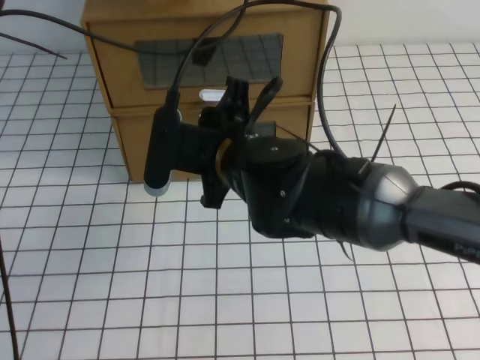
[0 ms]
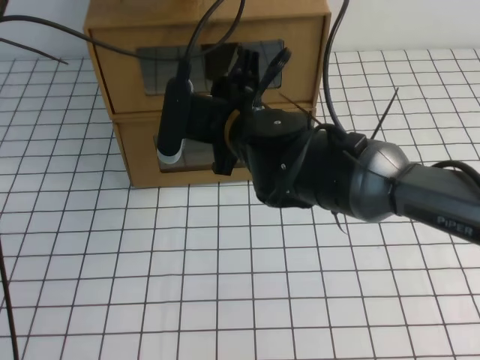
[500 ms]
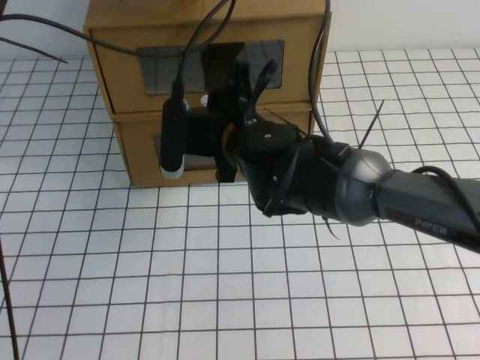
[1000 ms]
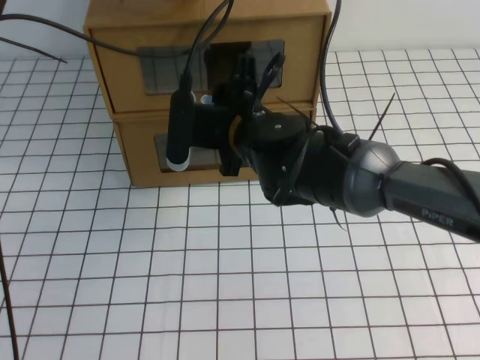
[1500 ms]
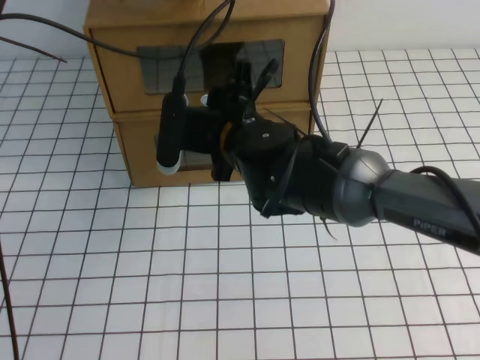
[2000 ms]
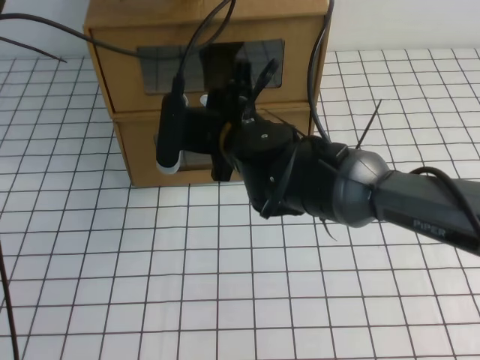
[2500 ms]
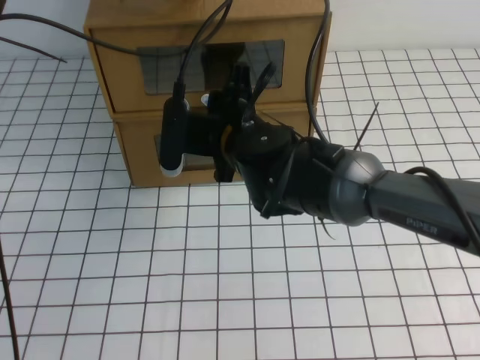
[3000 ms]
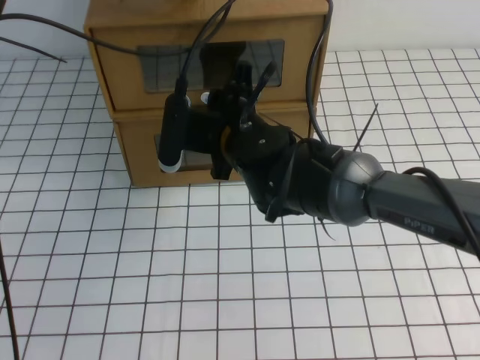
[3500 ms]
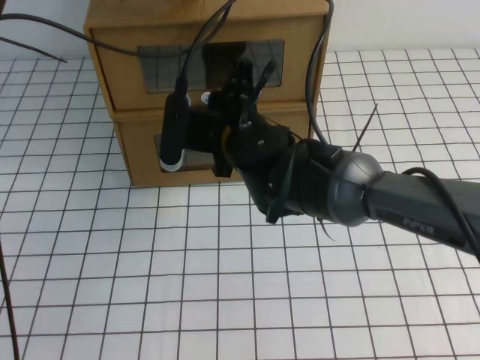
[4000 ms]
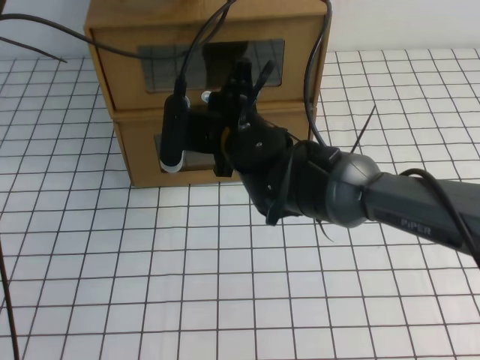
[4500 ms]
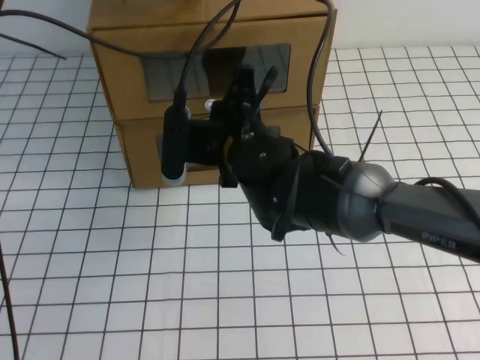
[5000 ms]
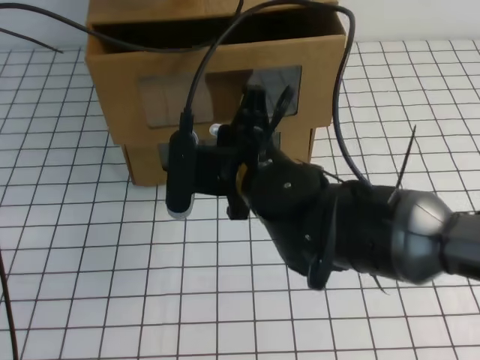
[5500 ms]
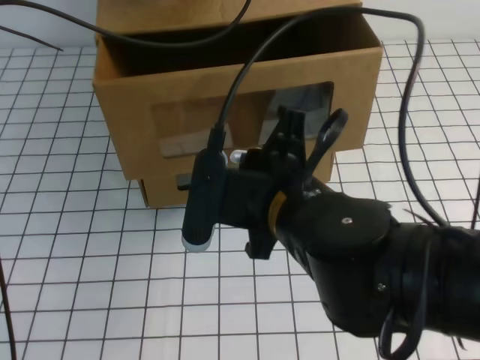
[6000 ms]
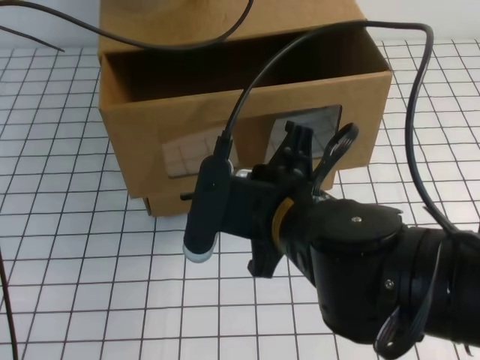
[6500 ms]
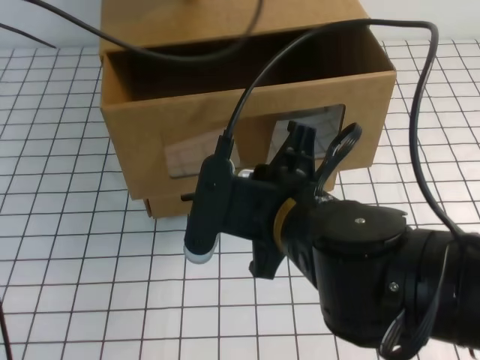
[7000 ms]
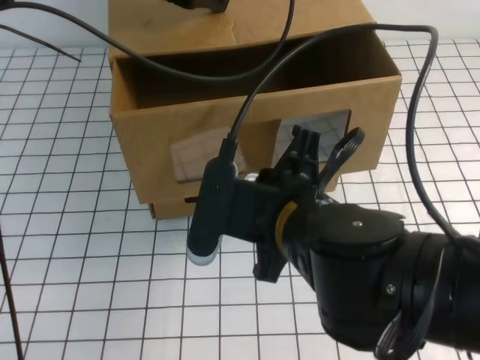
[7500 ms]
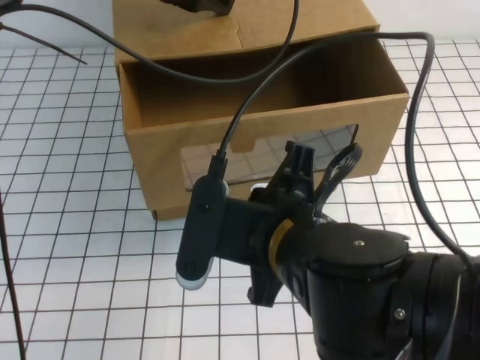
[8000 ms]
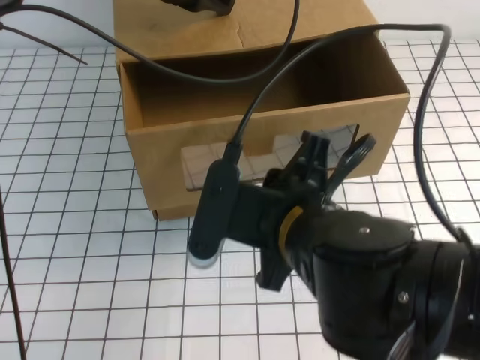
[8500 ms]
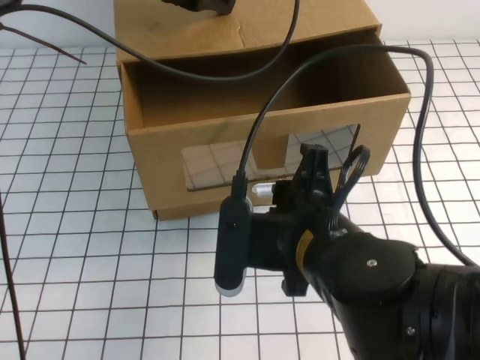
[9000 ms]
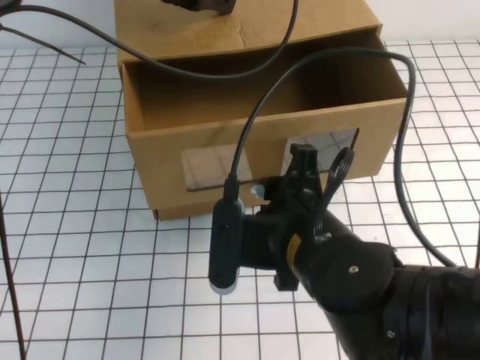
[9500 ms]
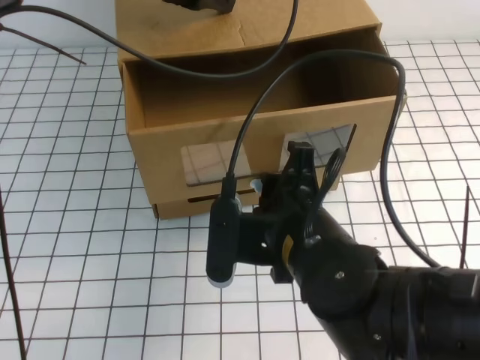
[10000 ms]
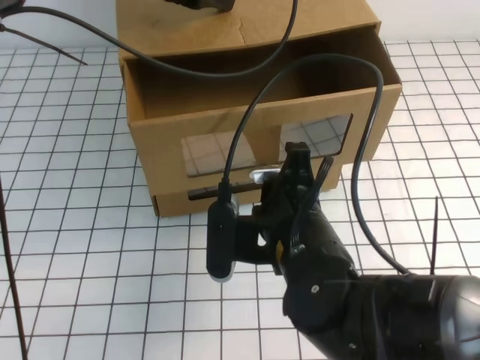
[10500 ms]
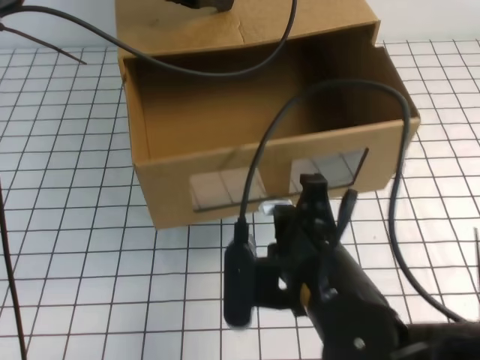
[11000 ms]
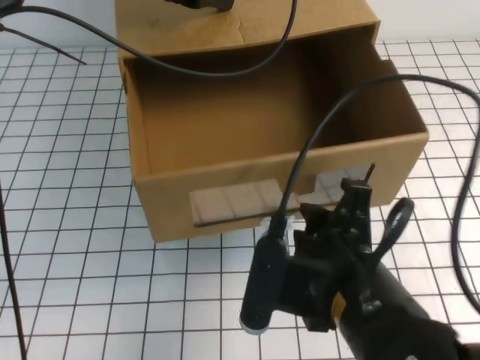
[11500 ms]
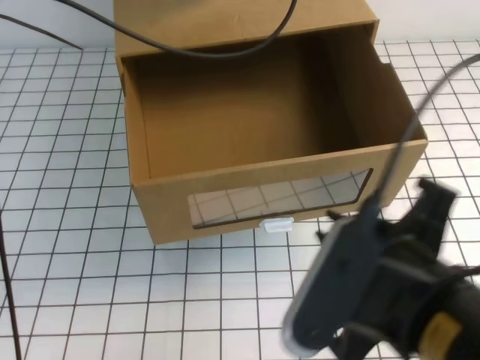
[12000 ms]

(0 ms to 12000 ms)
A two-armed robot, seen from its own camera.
Task of the whole recording: open the shoebox on the white tablecloth.
0 ms - 2000 ms: The right gripper goes some 5 cm forward.
2000 ms - 4000 ms: The right gripper closes.
4000 ms - 6000 ms: The right gripper moves backward, roughly 15 cm.
8000 ms - 10000 ms: The right gripper shifts by approximately 5 cm, and opens up.
10000 ms - 12000 ms: The right gripper goes some 15 cm backward, to the right and upward, and closes and opens again.

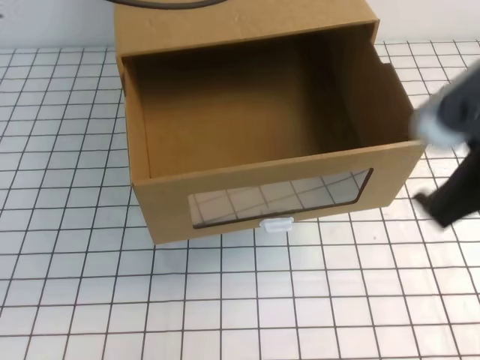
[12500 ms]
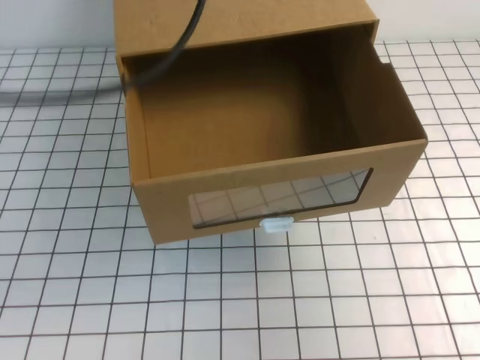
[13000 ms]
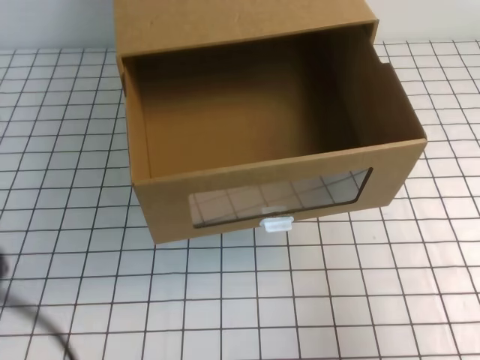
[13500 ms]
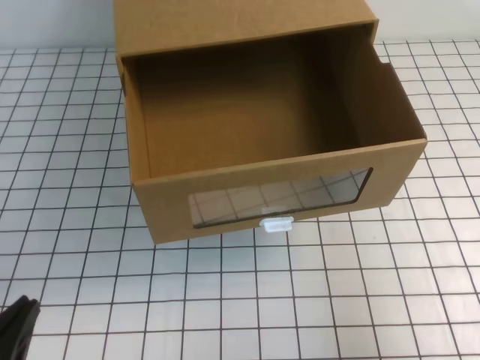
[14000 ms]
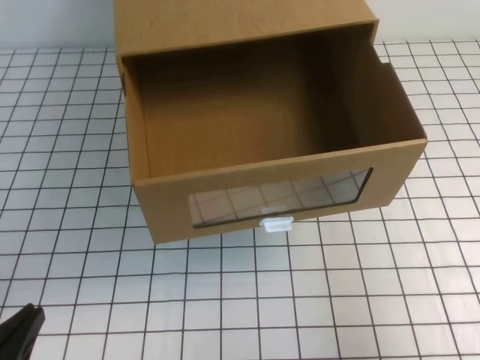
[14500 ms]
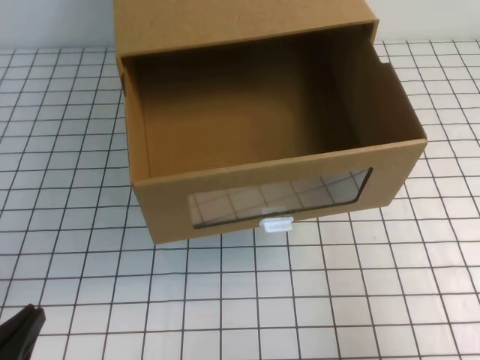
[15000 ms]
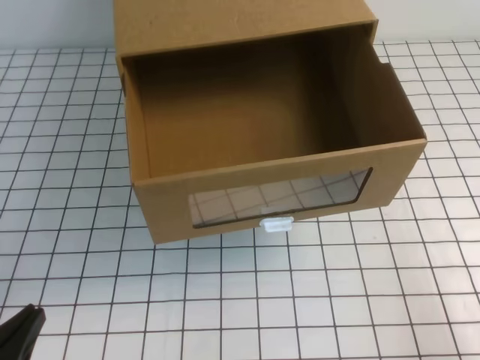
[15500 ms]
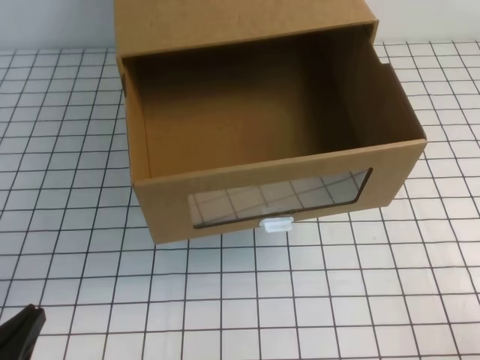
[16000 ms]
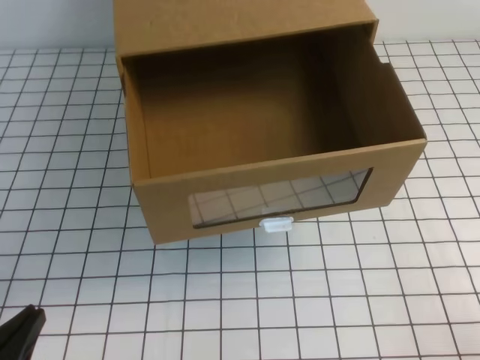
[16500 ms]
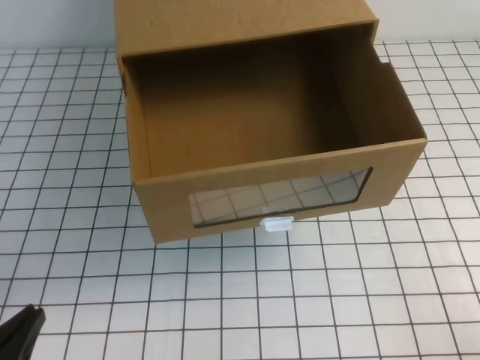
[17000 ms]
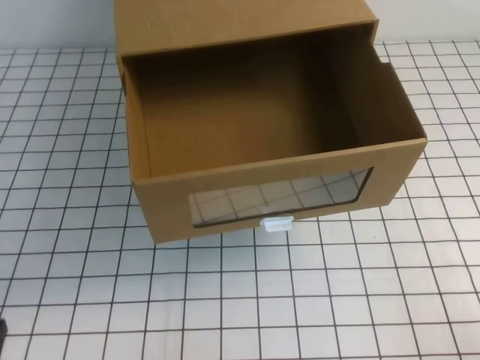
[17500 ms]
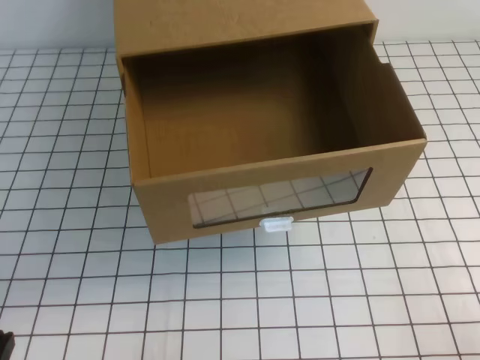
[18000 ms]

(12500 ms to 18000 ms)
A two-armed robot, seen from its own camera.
Task of the whole recording: open the shoebox on the white tablecloth.
Step, 12500 ms - 18000 ms: Open the shoe box.
12500 ms - 14500 ms: The left gripper moves downward, backward and to the left, roughly 50 cm; the right gripper goes roughly 15 cm to the right and downward.
14500 ms - 16000 ms: The right gripper is displaced downward and backward by about 15 cm.
16000 ms - 18000 ms: There are only small adjustments of the grippers.

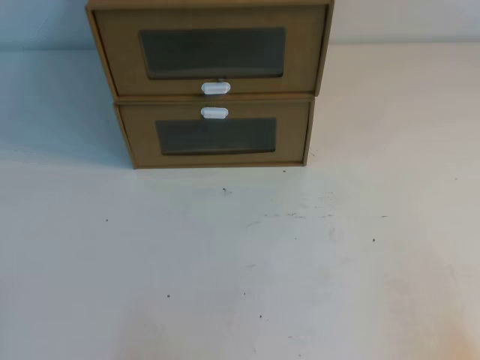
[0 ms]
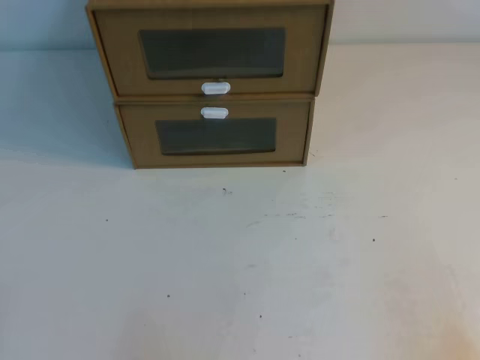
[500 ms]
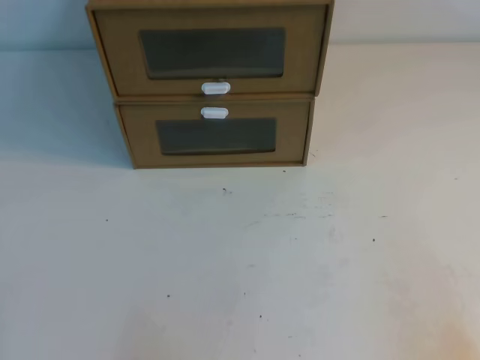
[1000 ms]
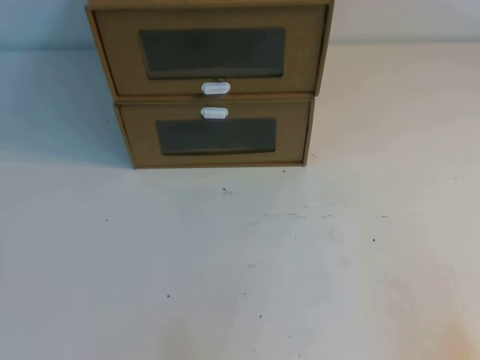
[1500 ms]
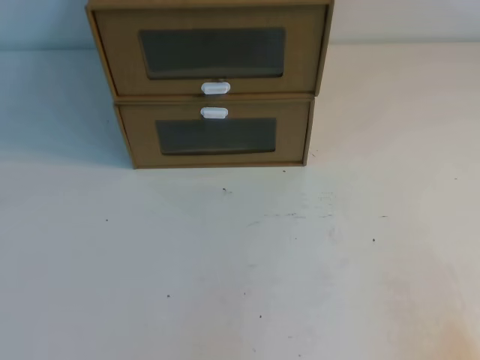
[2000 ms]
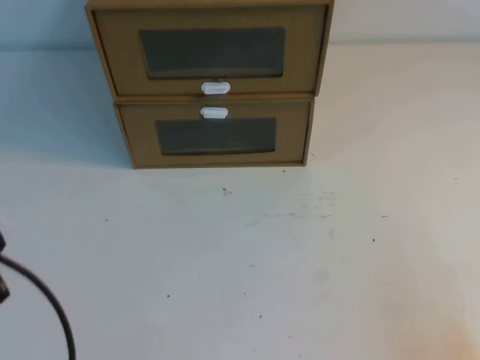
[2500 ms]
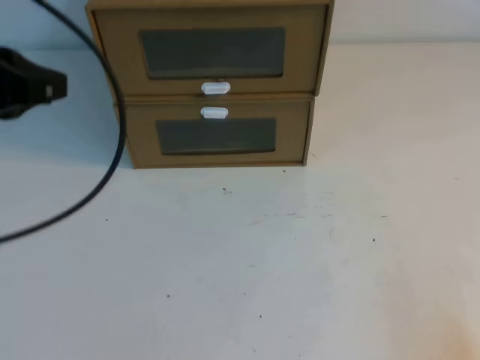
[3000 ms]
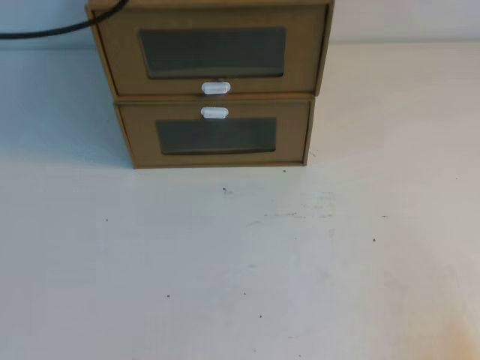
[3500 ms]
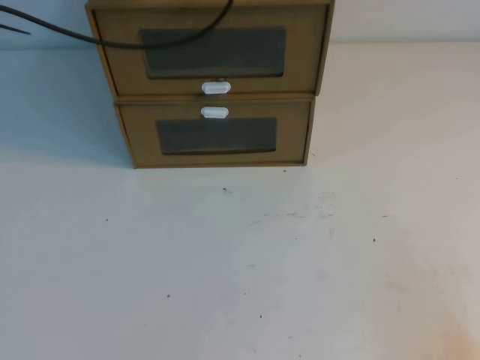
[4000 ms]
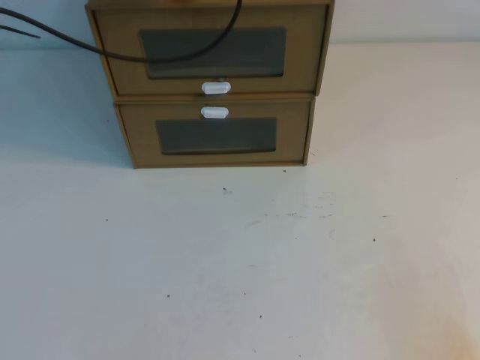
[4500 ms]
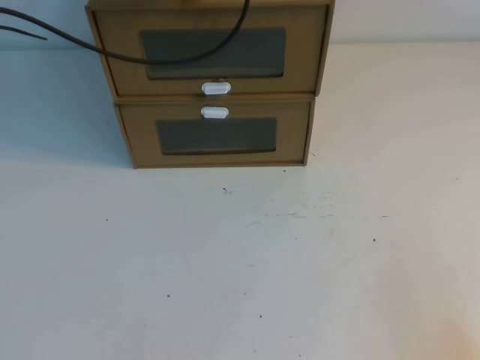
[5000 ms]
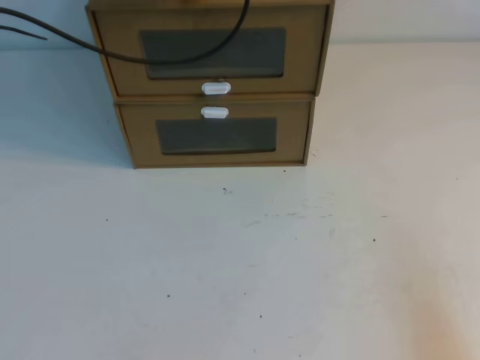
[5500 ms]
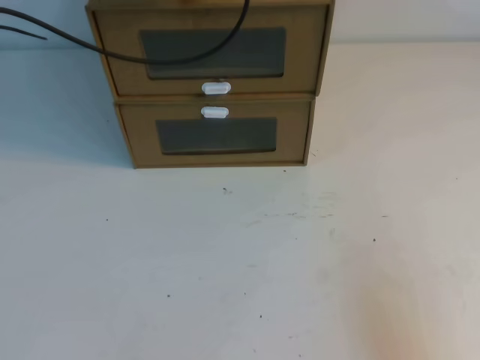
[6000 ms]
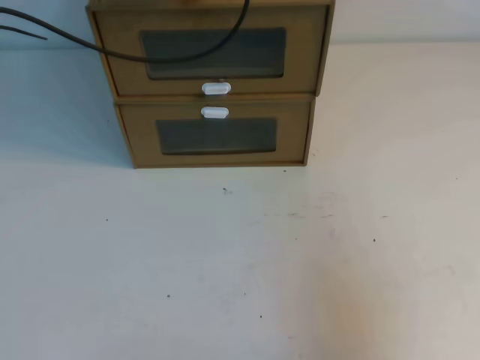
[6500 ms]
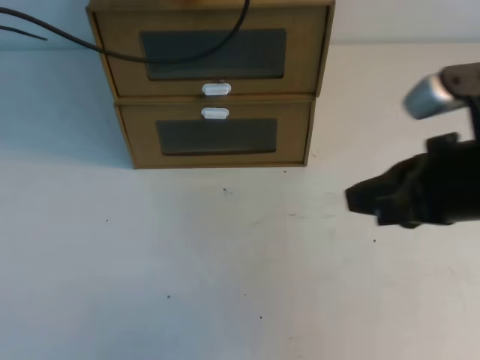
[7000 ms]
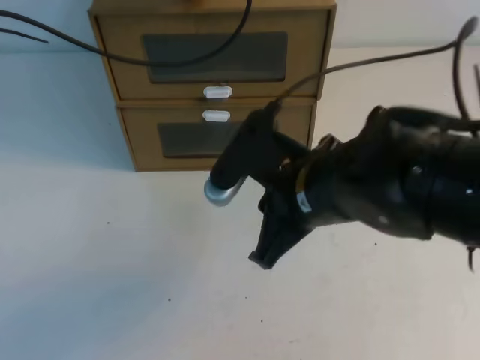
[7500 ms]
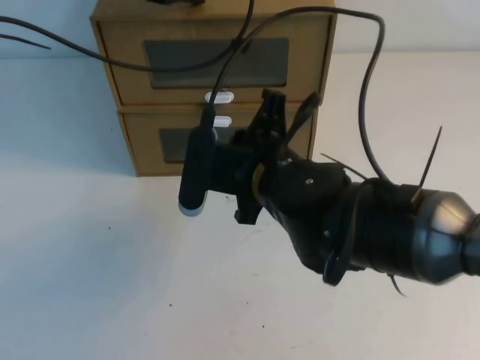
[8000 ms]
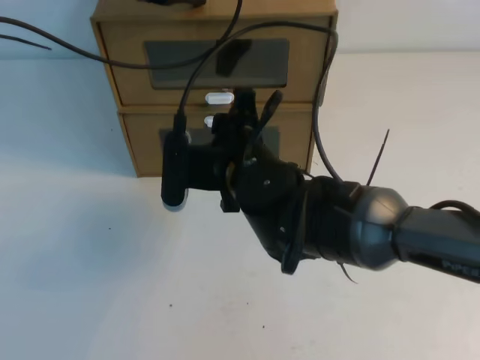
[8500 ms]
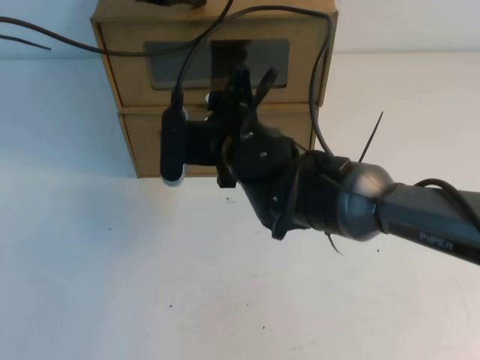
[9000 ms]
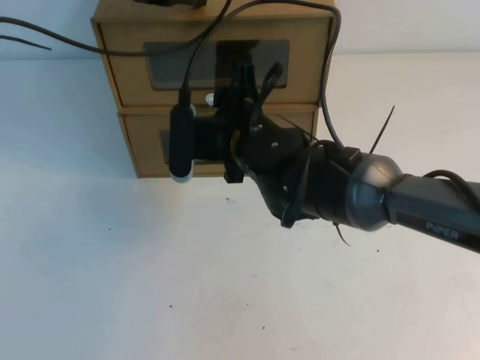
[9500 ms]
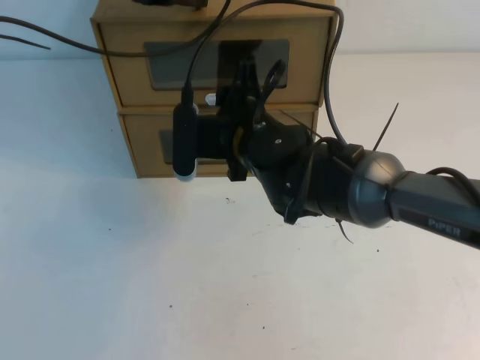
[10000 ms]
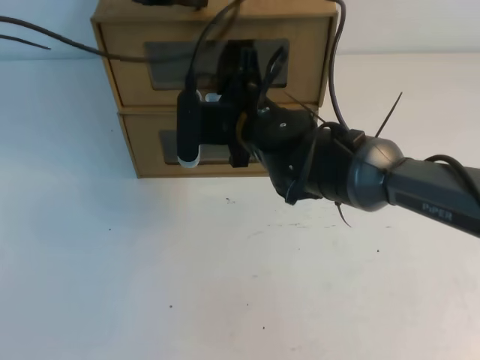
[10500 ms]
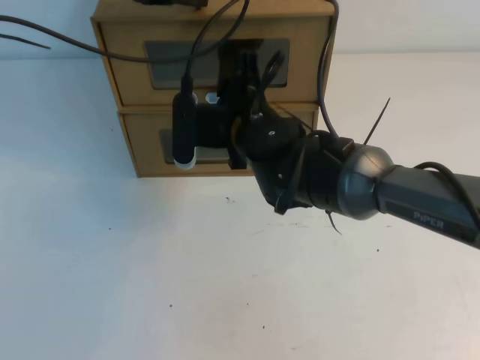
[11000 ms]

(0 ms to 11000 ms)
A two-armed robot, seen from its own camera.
Task of the whole recording: open the shoebox on the table.
3500 ms - 5500 ms: The left gripper moves forward, to the right and downward, approximately 15 cm.
5500 ms - 7500 ms: The right gripper heads to the left and forward, covering some 30 cm.
7500 ms - 9000 ms: The right gripper is displaced forward and to the left by roughly 15 cm, and opens.
9000 ms - 11000 ms: The grippers make only small movements.
